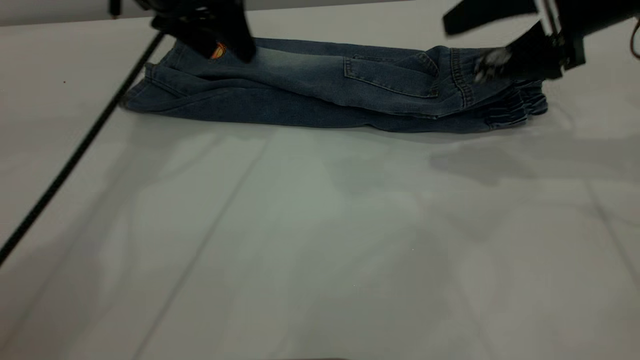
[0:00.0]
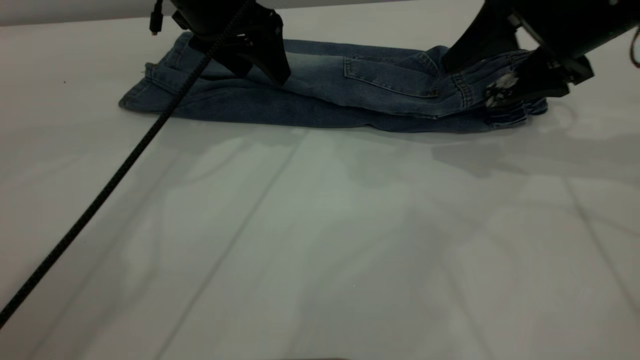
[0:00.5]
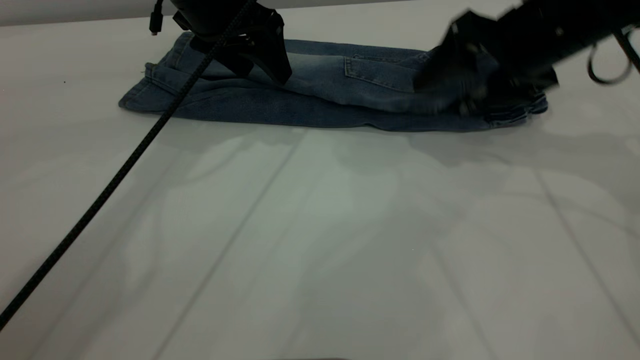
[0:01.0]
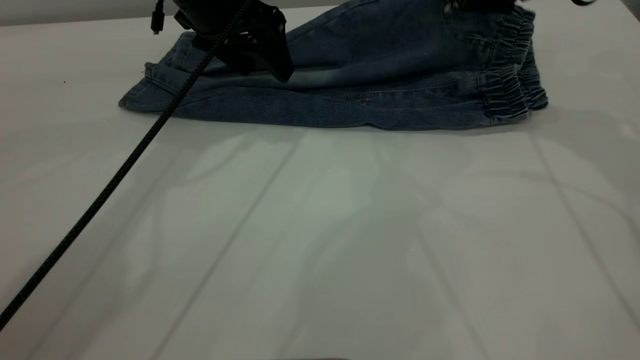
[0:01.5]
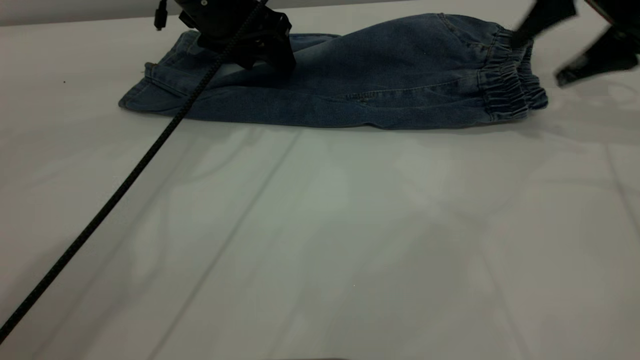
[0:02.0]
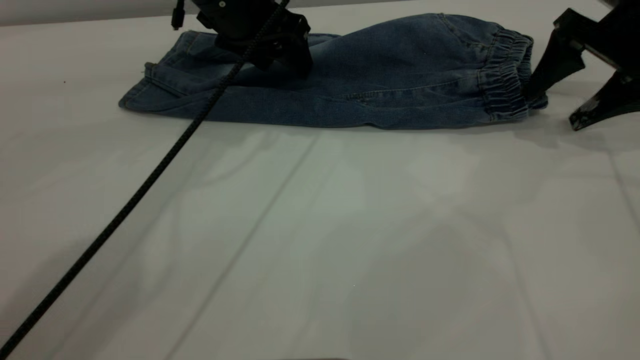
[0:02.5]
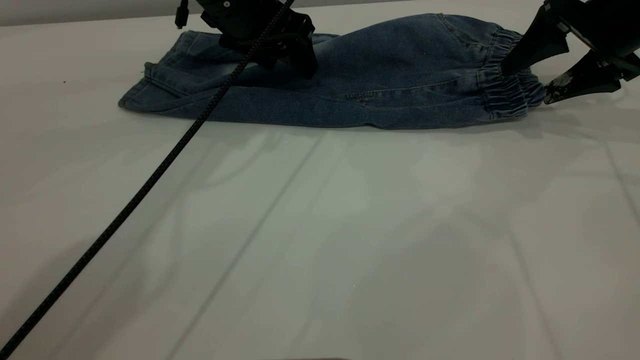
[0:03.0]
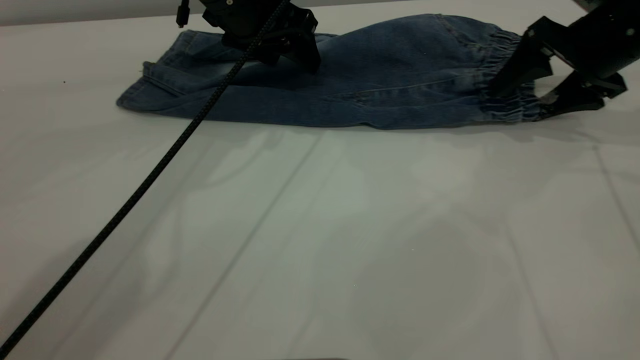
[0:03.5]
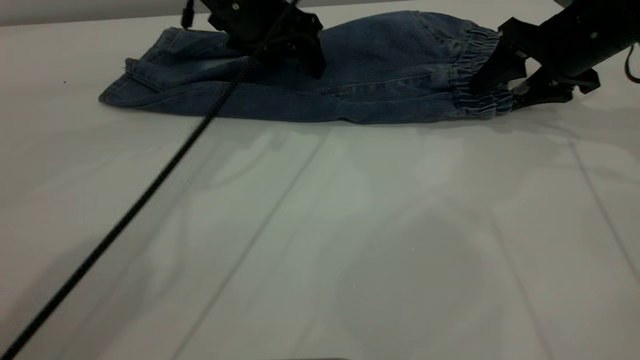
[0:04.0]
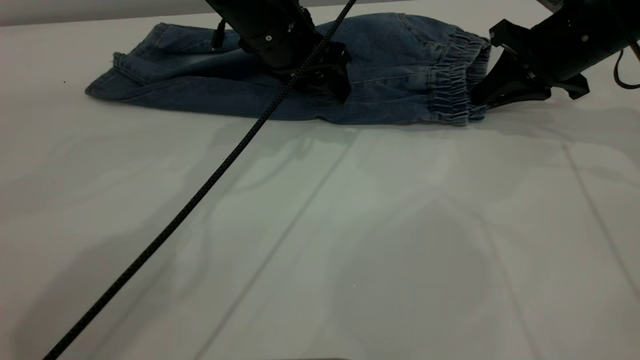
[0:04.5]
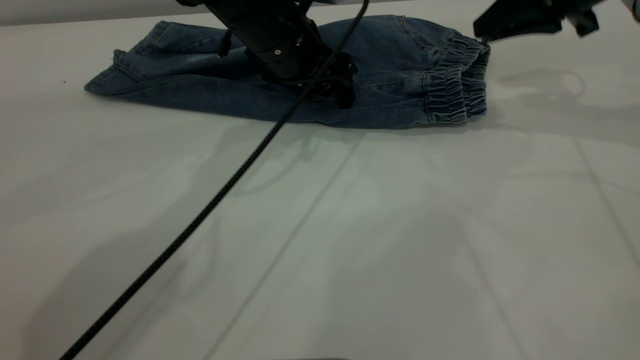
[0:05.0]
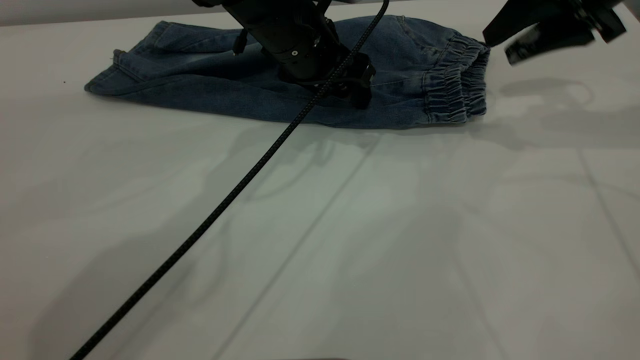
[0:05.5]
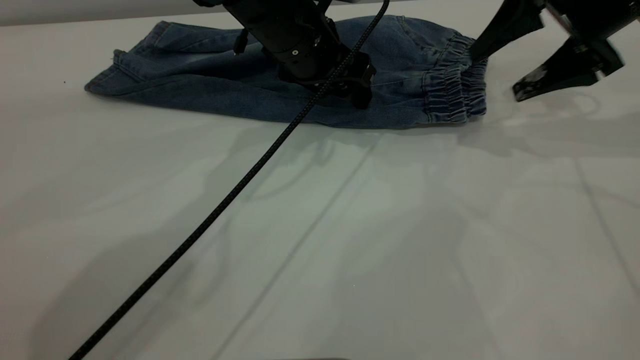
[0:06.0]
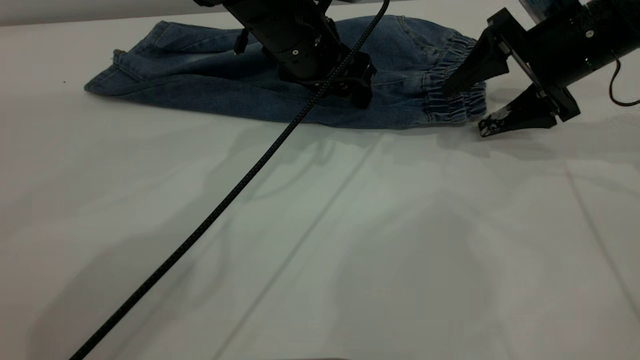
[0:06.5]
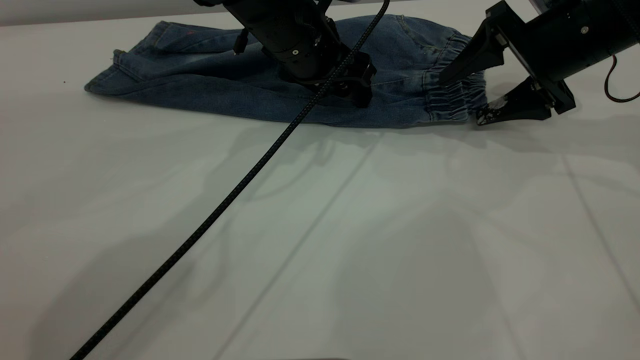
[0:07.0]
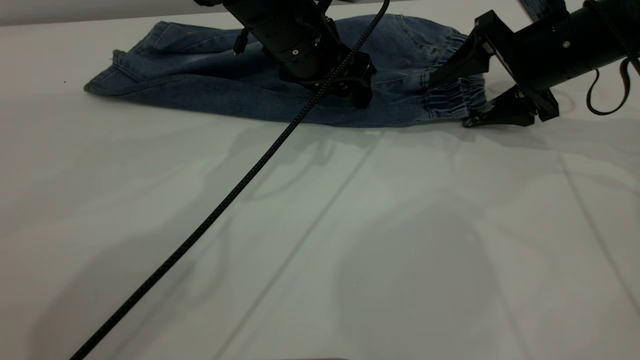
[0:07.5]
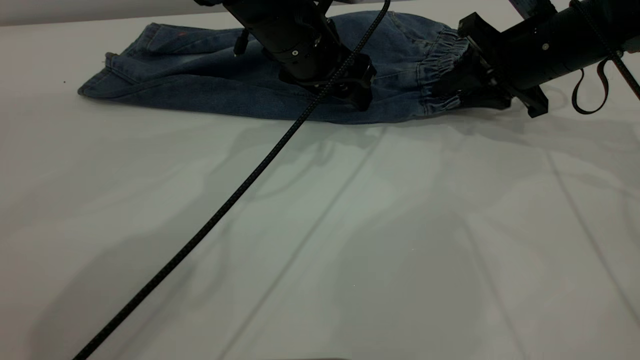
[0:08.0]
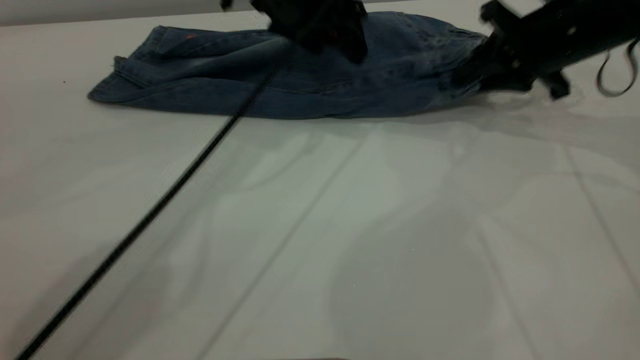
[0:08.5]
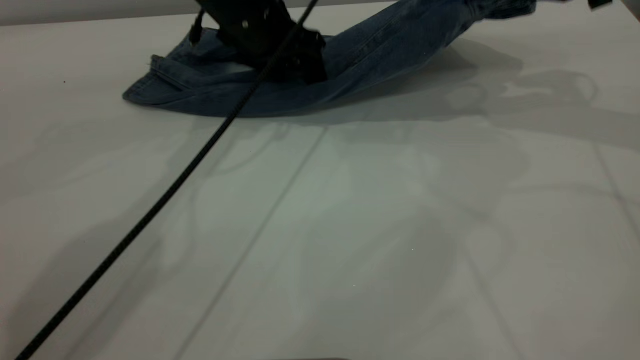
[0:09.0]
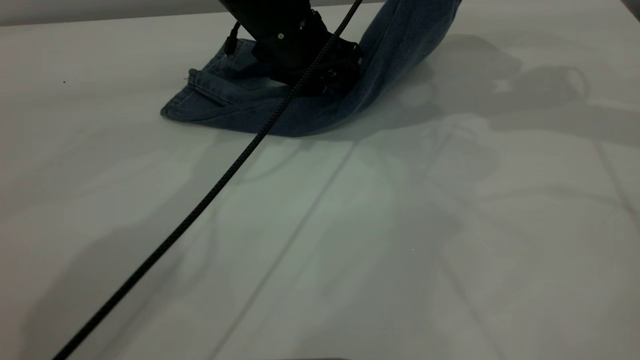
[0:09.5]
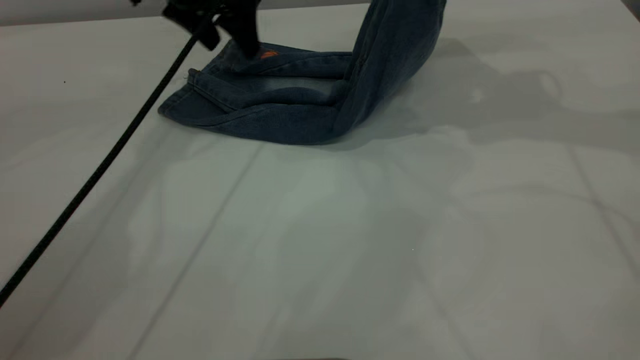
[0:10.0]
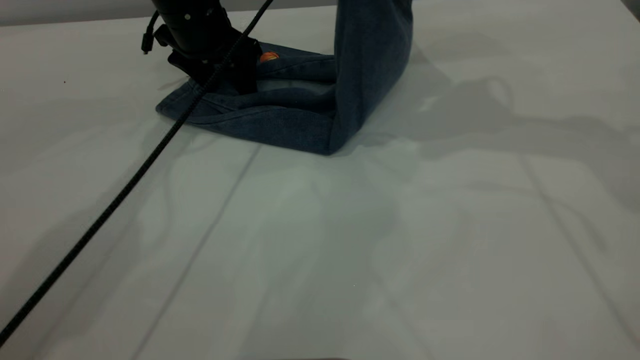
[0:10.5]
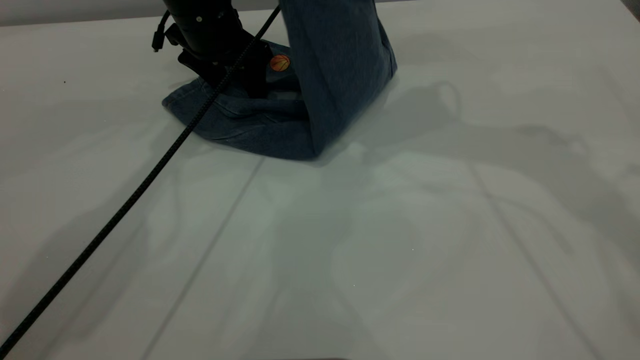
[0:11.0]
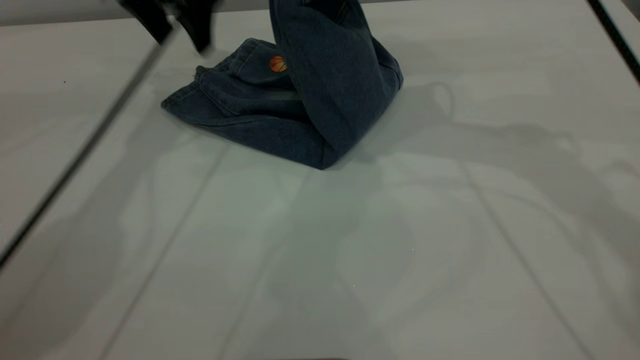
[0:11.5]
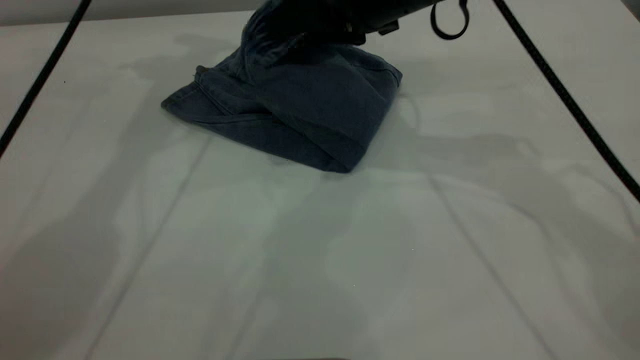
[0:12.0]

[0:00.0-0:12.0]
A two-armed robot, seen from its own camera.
0:00.0 to 0:02.0: The right gripper goes about 5 cm to the right.
0:02.0 to 0:04.0: The right gripper is displaced downward by some 5 cm.
0:04.0 to 0:06.0: The right gripper moves upward, approximately 5 cm, and closes, then reopens. Meanwhile the left gripper shifts by roughly 5 cm.
0:06.0 to 0:08.0: The right gripper travels downward by roughly 5 cm, and closes up.
0:08.0 to 0:10.0: The left gripper heads to the left, upward and forward, covering some 15 cm. Meanwhile the right gripper moves upward, some 15 cm.
0:10.0 to 0:12.0: The left gripper moves upward, some 10 cm; the right gripper heads to the left and downward, covering approximately 15 cm.

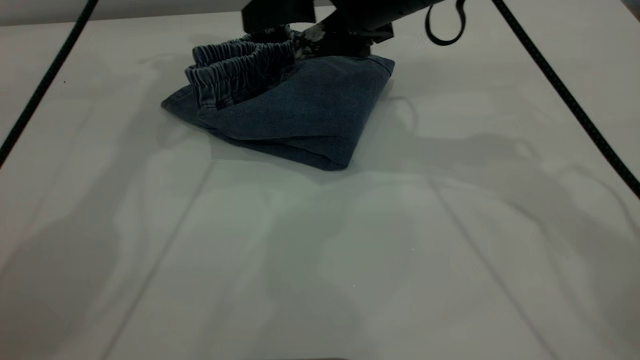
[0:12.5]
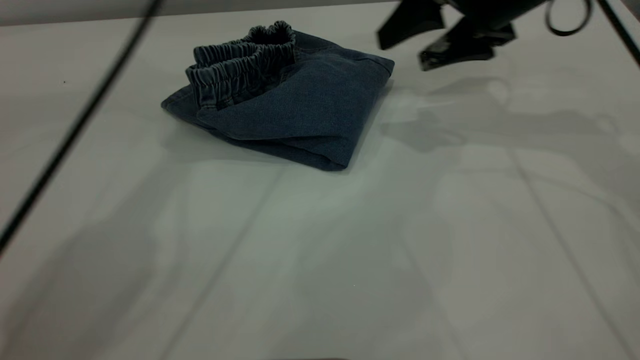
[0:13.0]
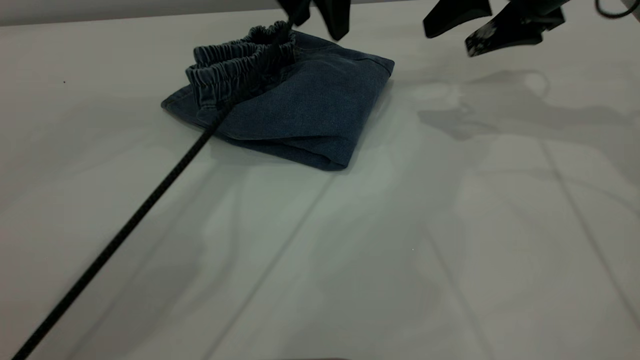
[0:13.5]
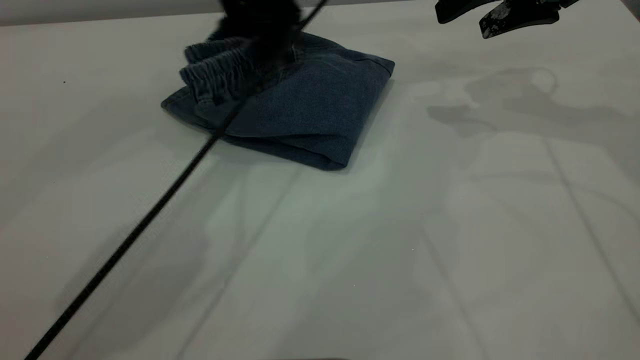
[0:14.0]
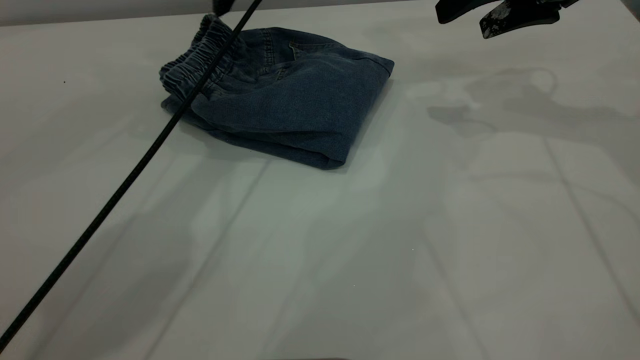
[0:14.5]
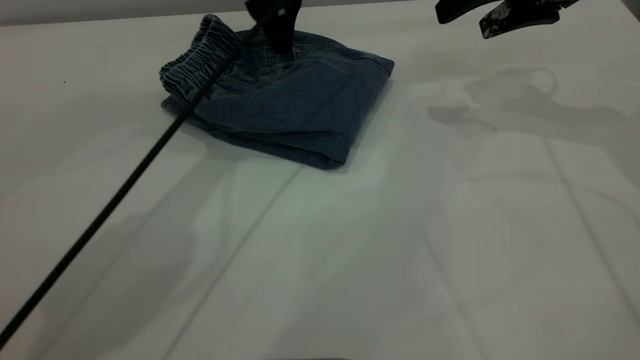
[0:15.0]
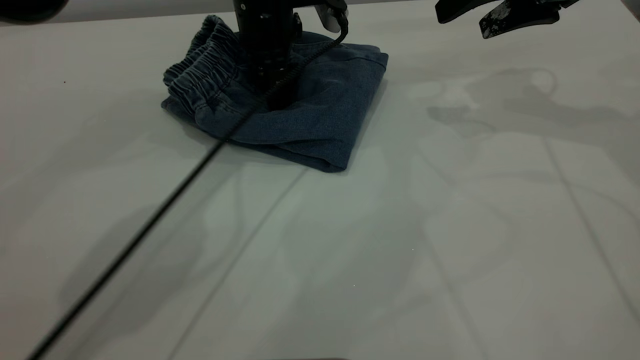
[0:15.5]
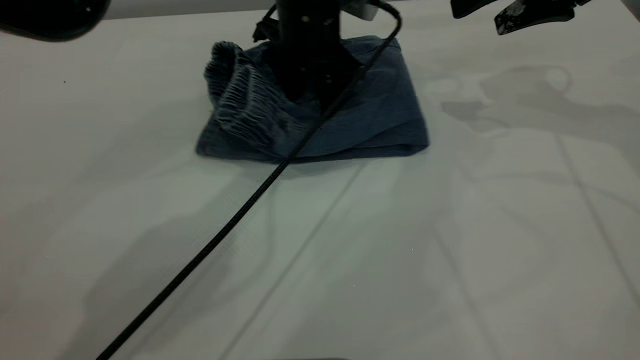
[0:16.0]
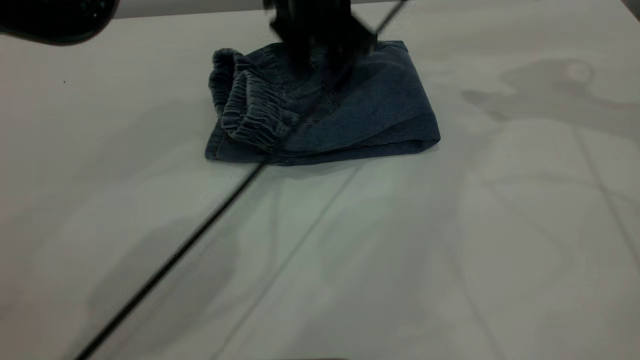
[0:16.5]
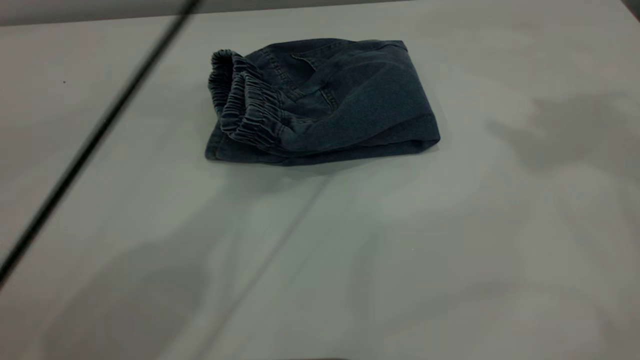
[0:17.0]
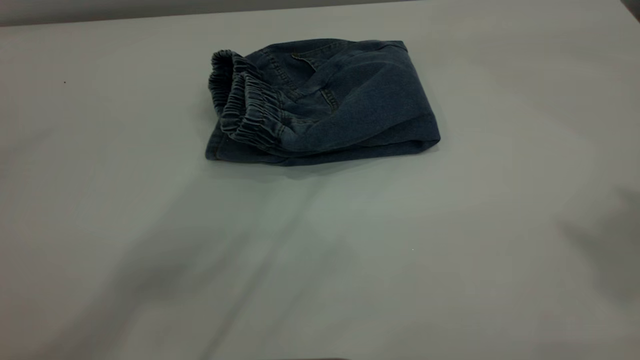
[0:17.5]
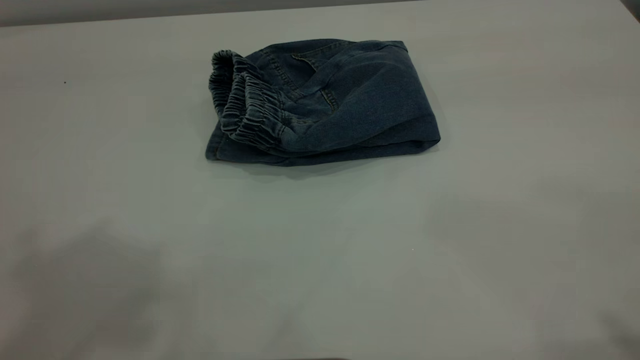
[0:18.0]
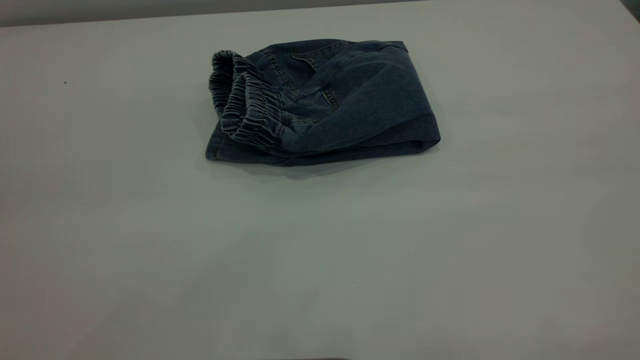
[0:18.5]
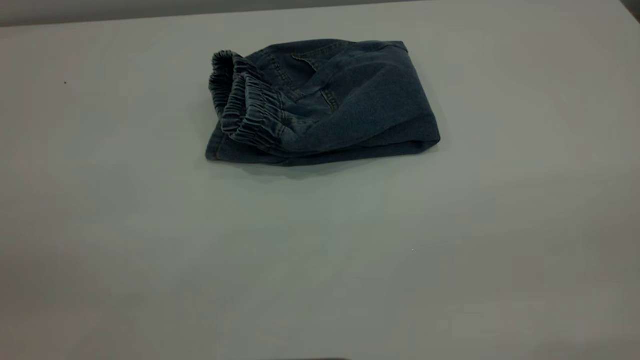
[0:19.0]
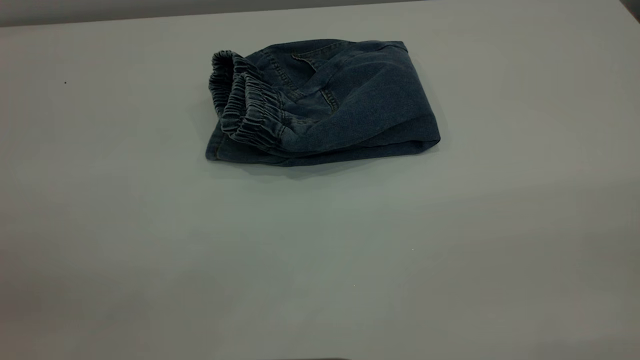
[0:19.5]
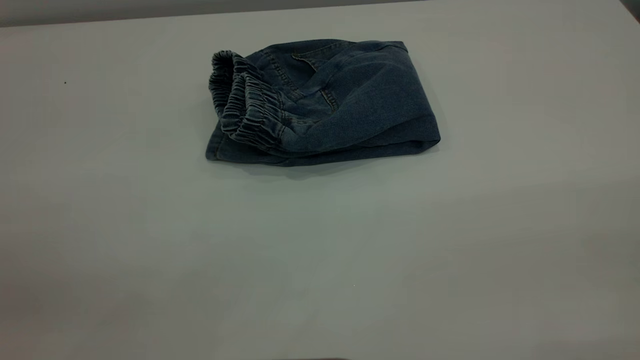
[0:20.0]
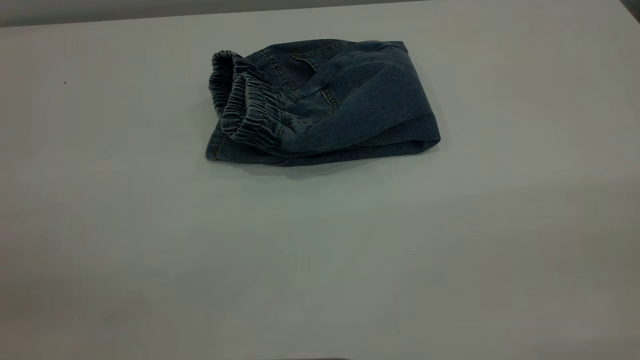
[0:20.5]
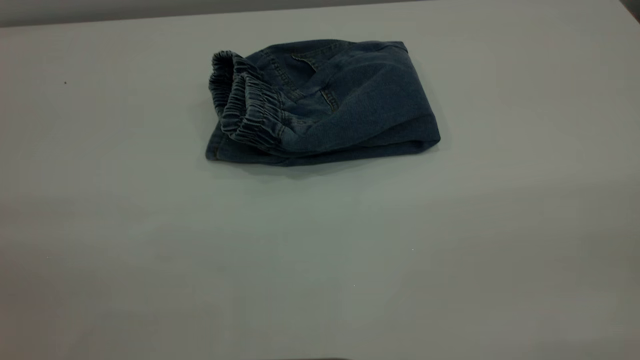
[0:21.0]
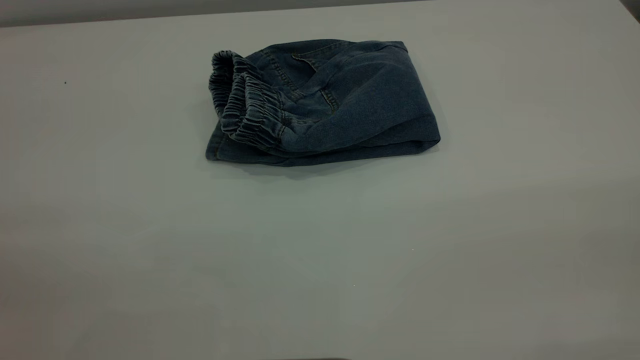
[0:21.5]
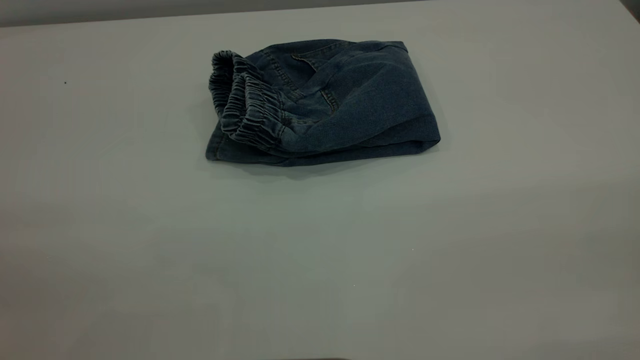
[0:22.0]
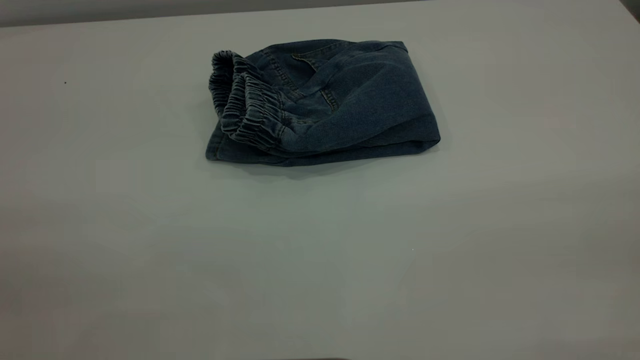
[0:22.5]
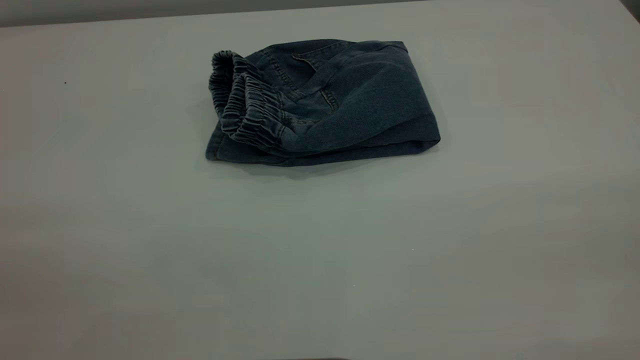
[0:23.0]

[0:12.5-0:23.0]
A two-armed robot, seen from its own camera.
0:12.5 to 0:14.5: The left gripper goes some 10 cm to the right and downward. The right gripper heads to the right, covering approximately 15 cm.
0:14.5 to 0:16.5: The right gripper goes approximately 5 cm upward, while the left gripper heads to the right, covering roughly 10 cm.
0:16.5 to 0:19.0: The right gripper goes approximately 50 cm backward, while the left gripper travels backward and to the left by about 50 cm.
